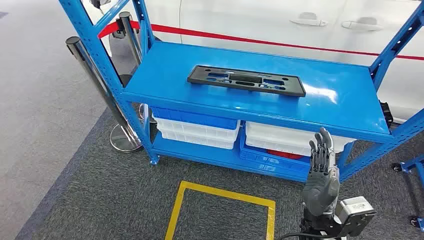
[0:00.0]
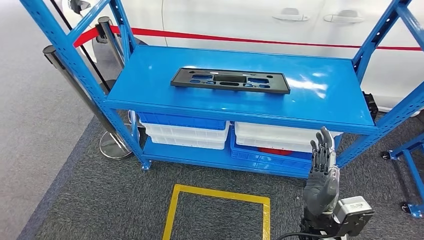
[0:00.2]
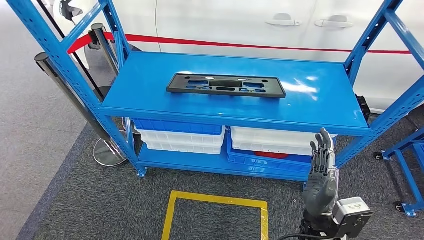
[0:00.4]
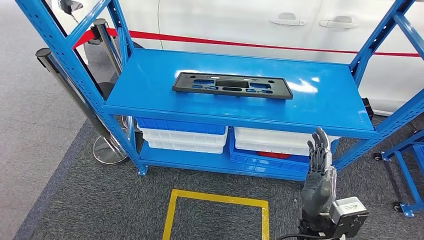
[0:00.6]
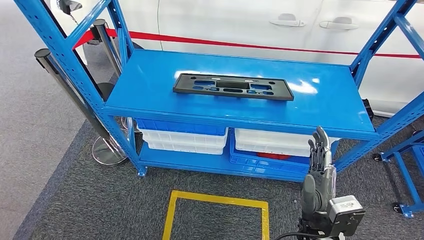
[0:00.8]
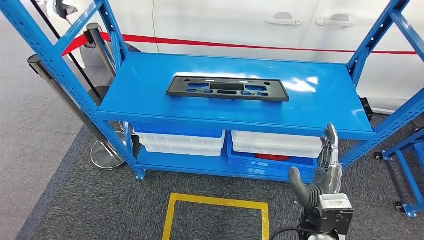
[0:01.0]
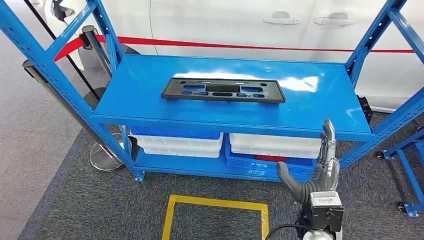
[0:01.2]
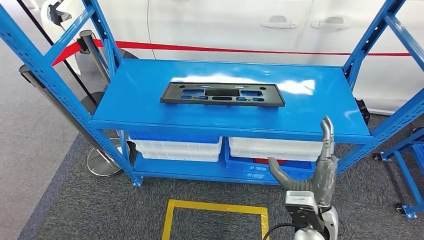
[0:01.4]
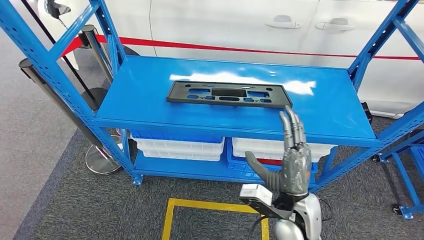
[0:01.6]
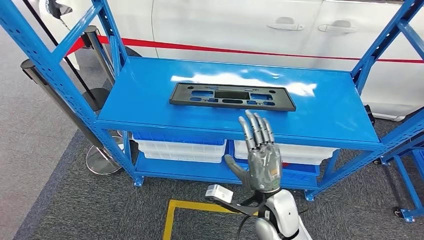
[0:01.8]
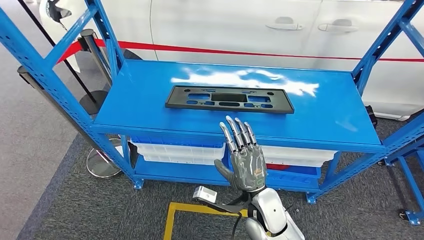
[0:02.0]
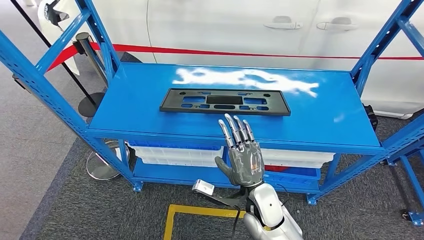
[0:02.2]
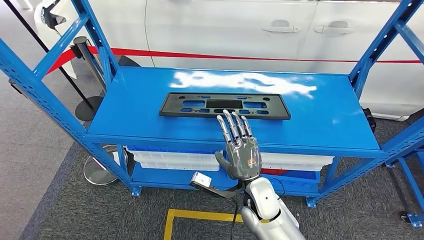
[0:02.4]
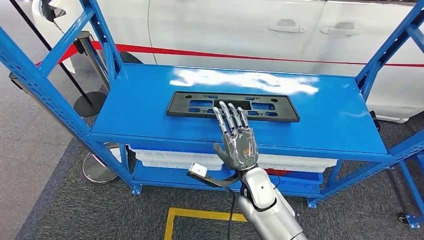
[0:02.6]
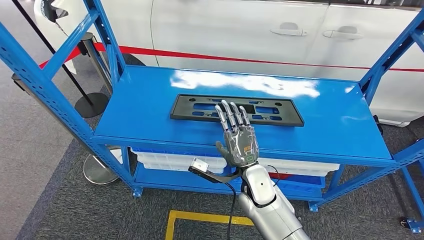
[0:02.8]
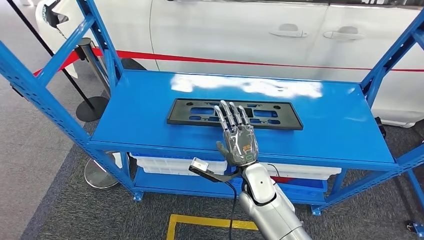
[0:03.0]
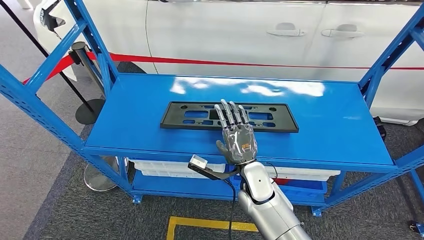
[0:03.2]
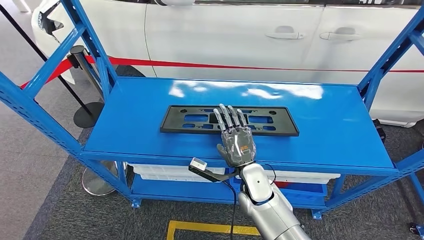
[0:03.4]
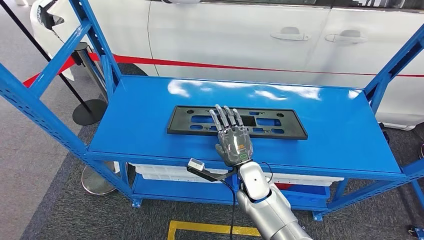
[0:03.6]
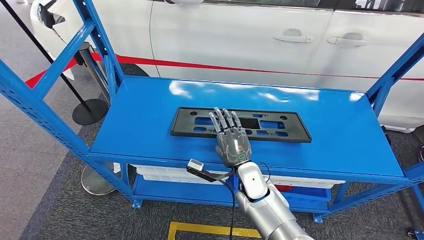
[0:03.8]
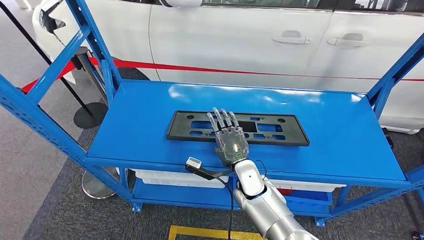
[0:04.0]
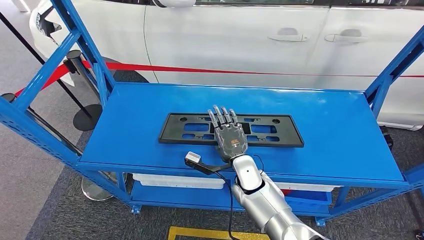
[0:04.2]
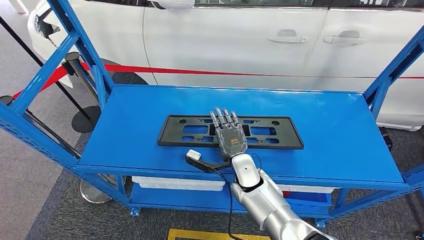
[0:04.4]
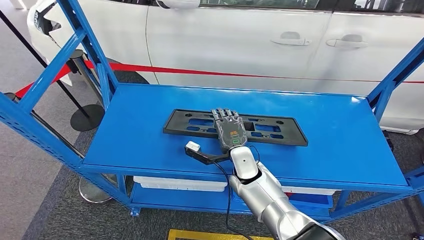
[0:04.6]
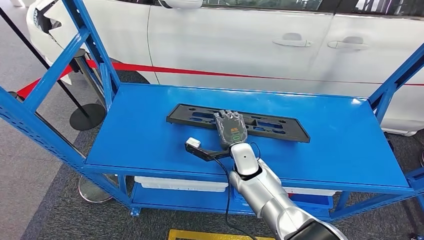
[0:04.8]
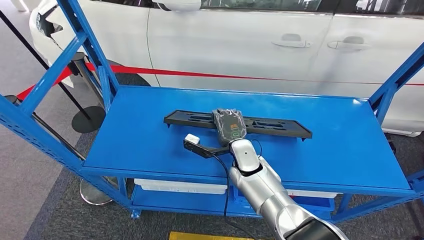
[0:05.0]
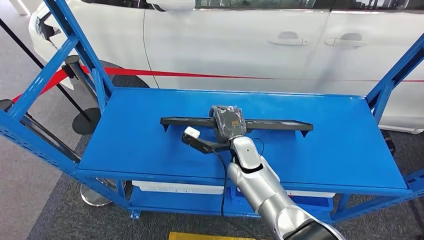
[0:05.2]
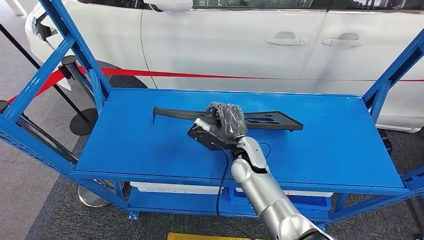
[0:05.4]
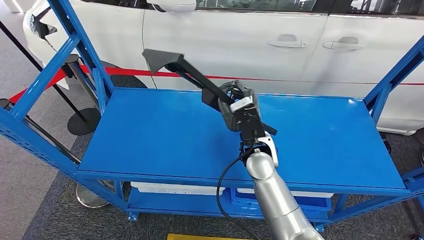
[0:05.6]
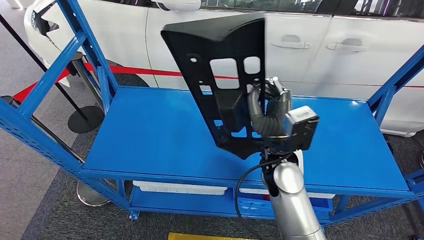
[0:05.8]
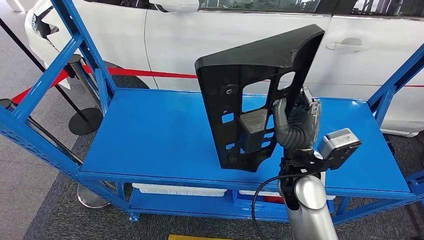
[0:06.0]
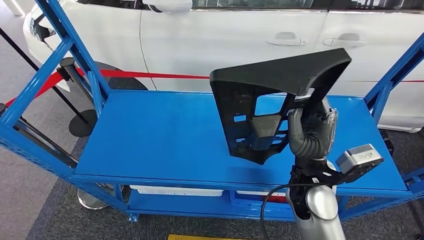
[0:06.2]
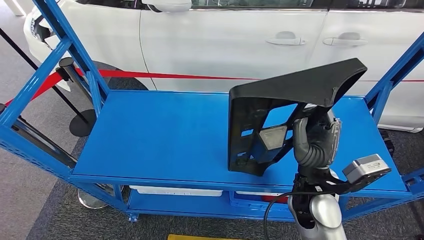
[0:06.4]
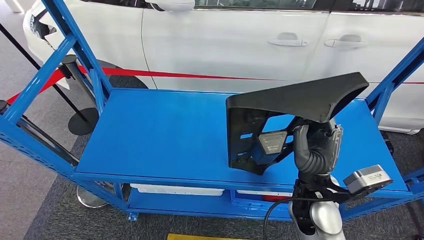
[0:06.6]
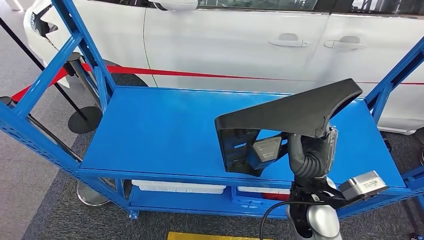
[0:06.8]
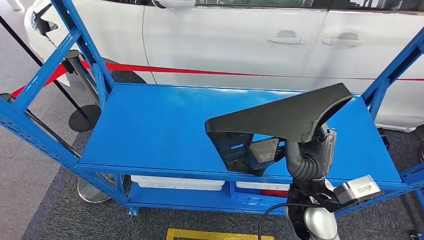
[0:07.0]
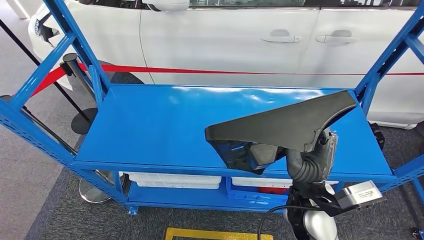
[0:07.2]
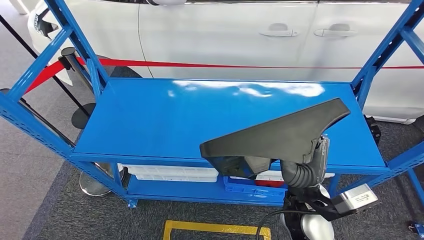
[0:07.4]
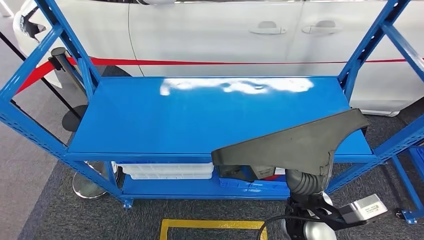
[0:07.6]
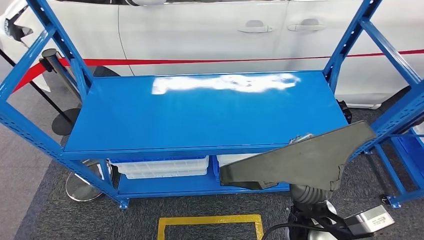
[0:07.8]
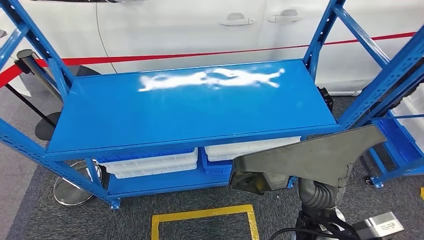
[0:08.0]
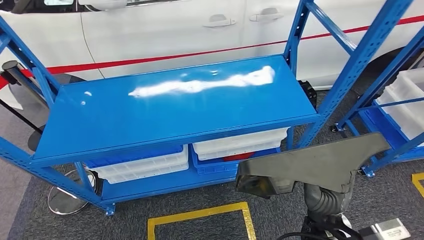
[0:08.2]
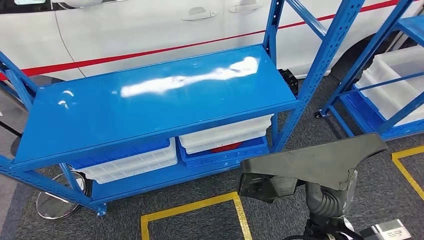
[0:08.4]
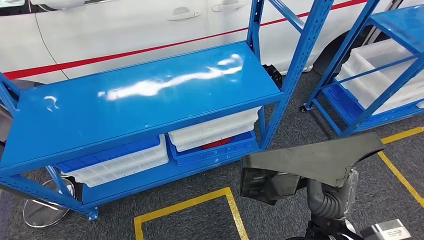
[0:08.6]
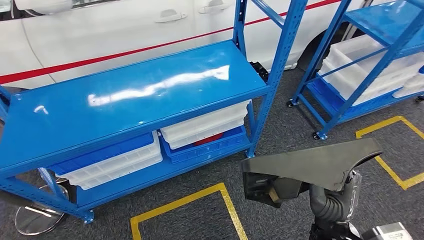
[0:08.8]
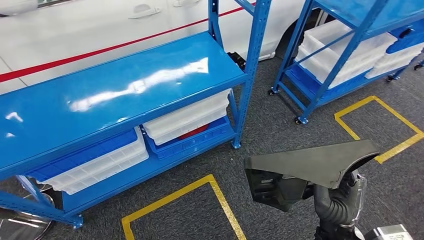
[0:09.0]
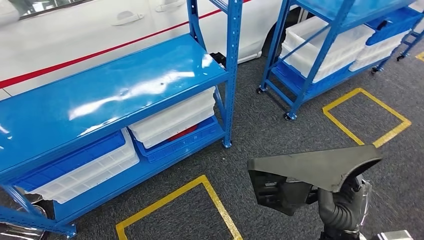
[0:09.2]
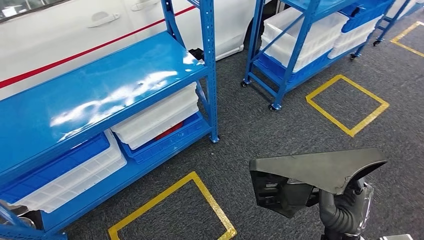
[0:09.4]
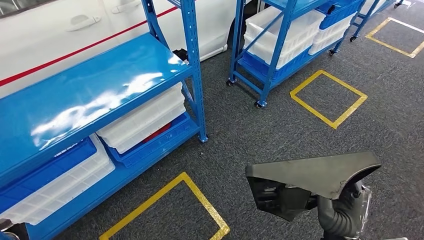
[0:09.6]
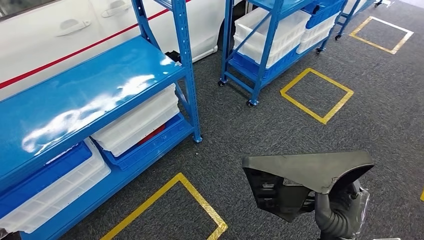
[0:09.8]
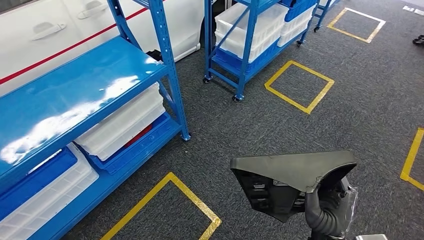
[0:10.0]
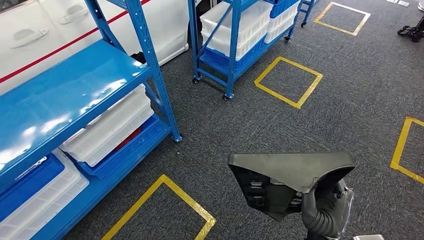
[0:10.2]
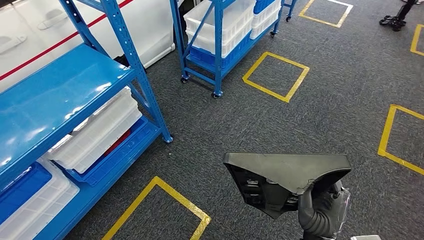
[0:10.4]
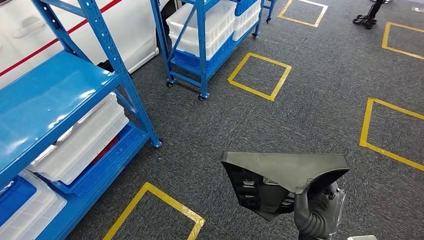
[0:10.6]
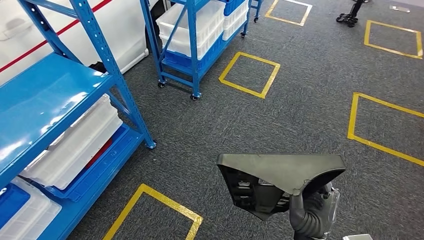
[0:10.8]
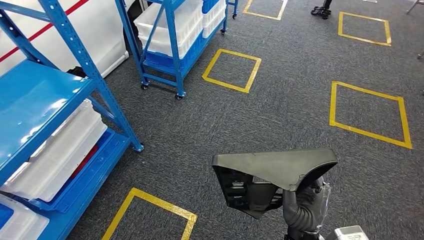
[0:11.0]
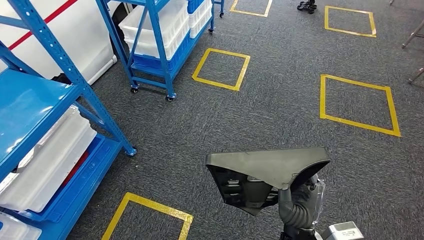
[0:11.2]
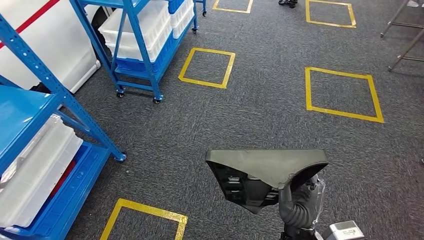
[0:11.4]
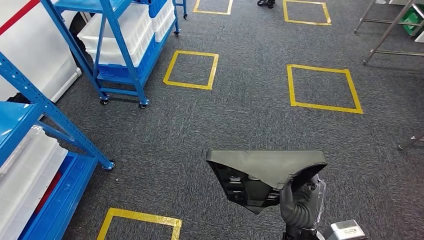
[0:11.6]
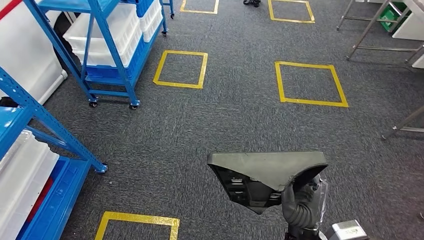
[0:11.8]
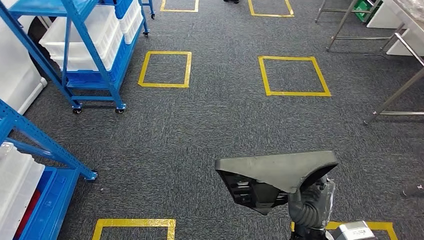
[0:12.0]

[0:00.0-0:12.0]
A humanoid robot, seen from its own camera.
Step, 0:00.0 to 0:06.4: Pick up the large material from the shelf.

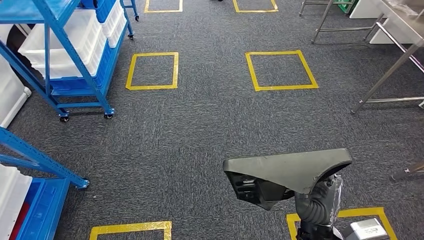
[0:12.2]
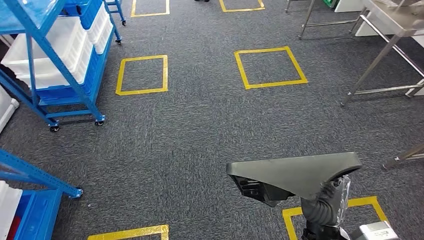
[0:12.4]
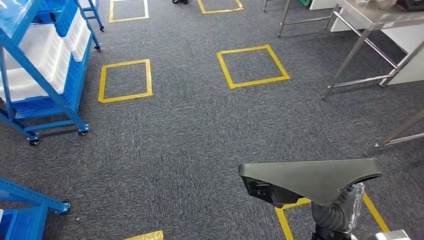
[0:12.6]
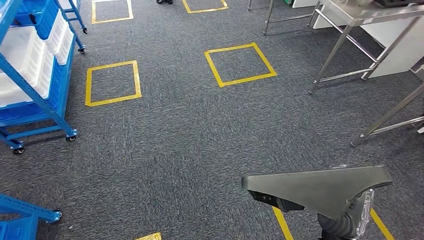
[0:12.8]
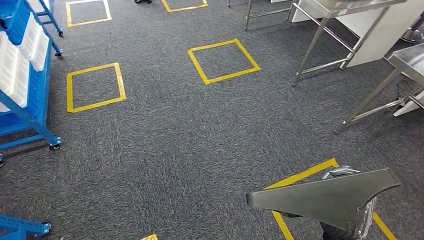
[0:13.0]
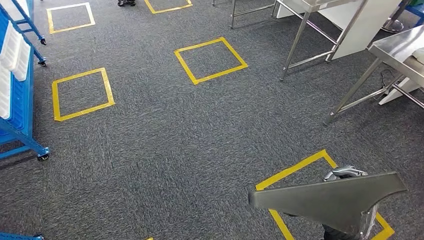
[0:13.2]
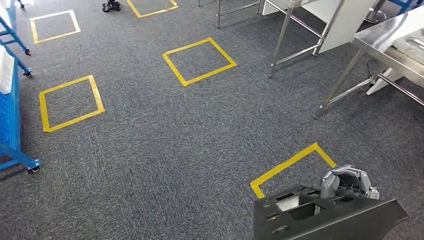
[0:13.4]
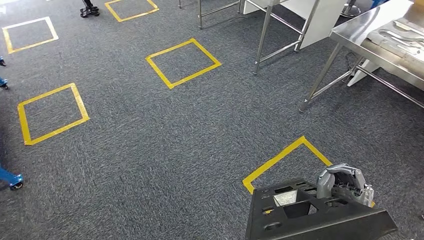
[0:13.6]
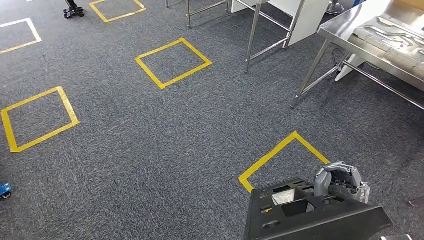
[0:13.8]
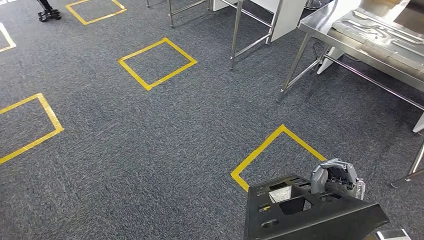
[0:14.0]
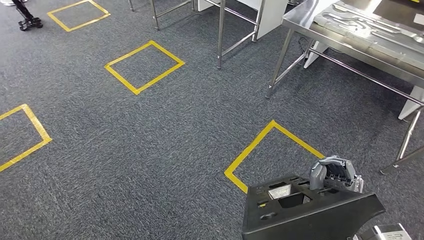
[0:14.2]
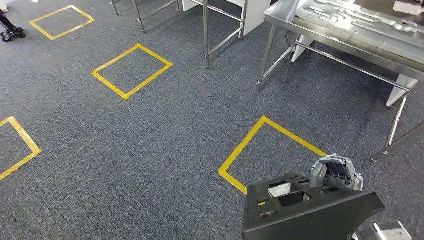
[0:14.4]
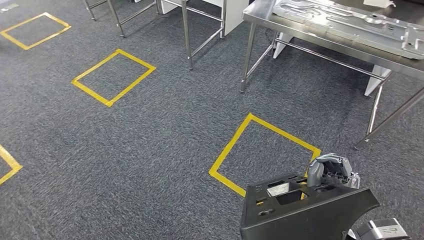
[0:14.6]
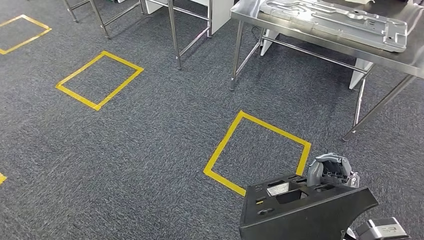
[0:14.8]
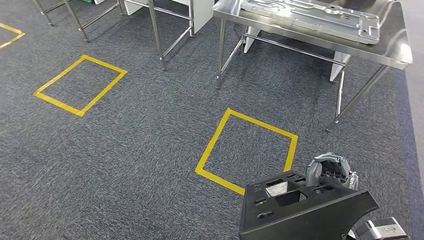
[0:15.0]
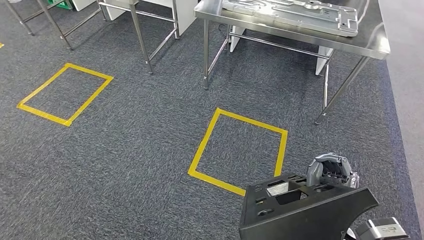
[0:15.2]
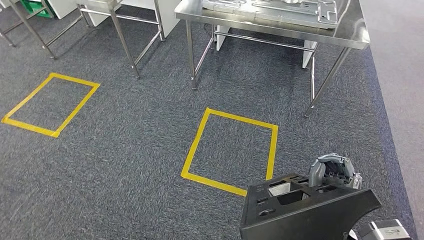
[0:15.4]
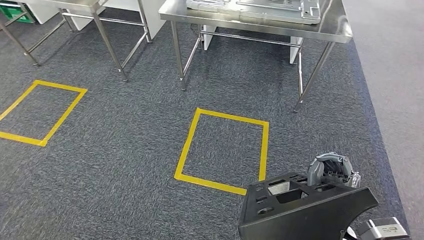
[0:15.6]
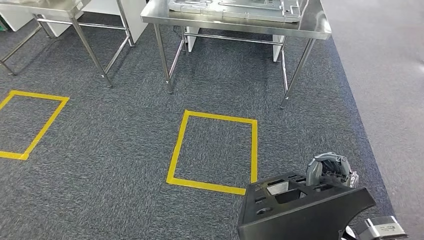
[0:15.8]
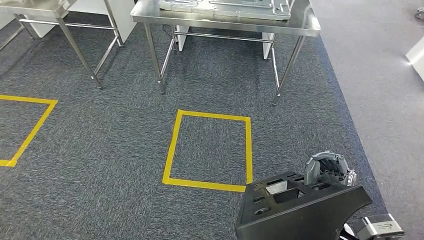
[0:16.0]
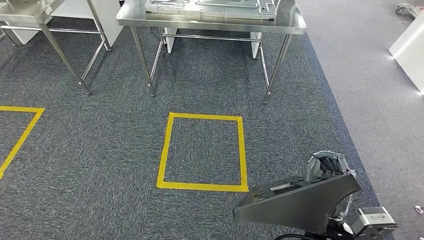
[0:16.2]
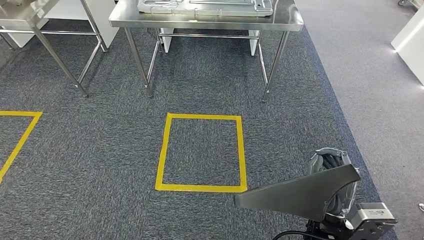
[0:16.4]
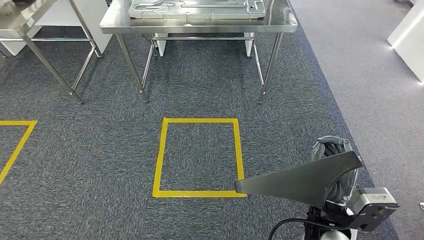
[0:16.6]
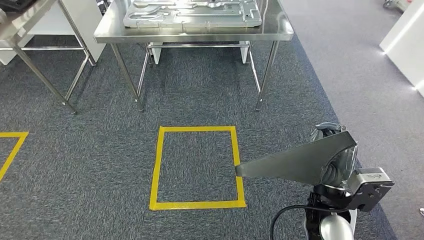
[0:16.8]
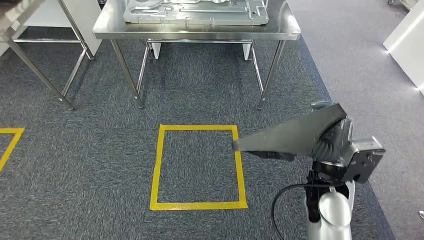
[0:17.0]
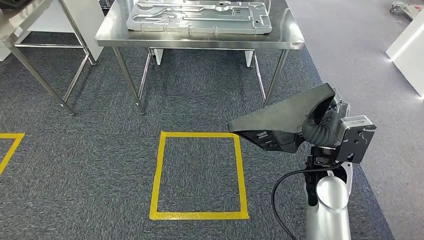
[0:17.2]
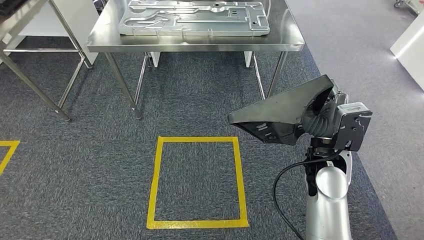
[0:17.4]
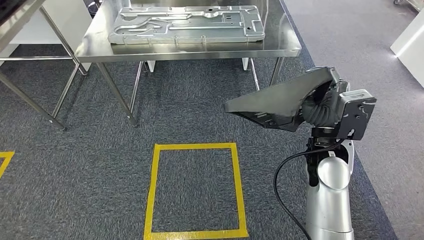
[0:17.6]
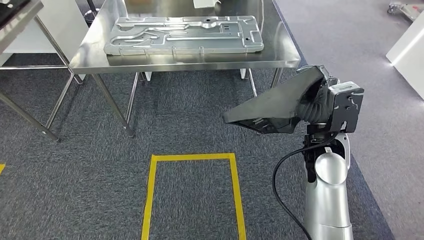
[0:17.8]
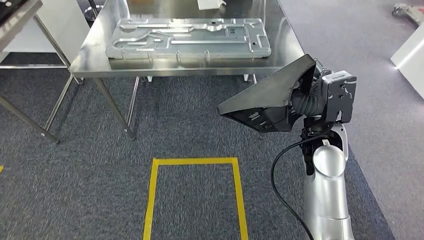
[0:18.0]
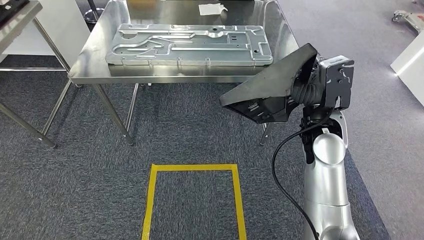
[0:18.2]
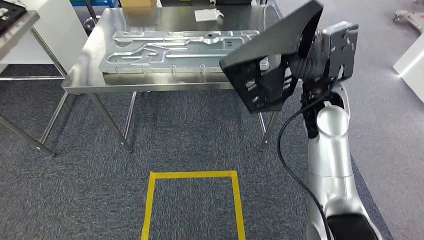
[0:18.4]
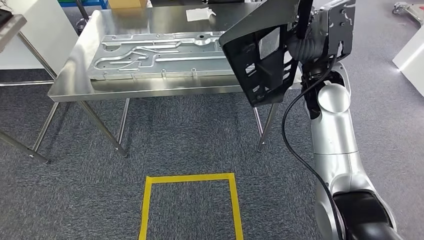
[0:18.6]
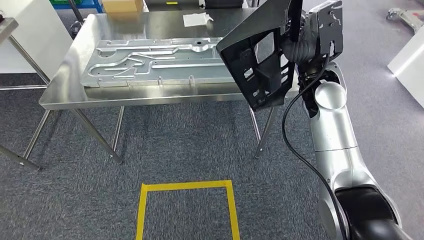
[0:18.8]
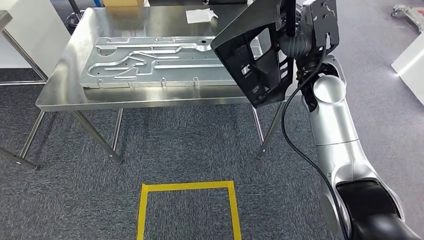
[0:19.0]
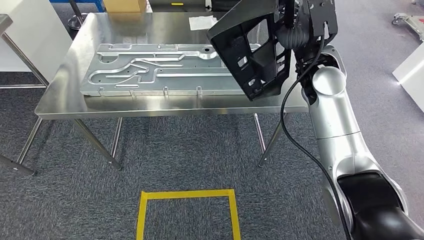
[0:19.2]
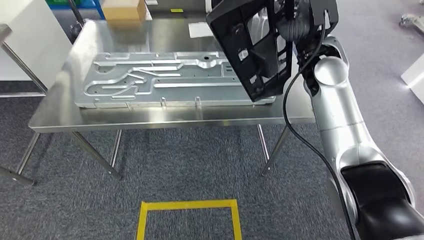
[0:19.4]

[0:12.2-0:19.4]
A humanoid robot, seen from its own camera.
Step, 0:12.2 to 0:19.4: Move the large material to the front of the workbench.
